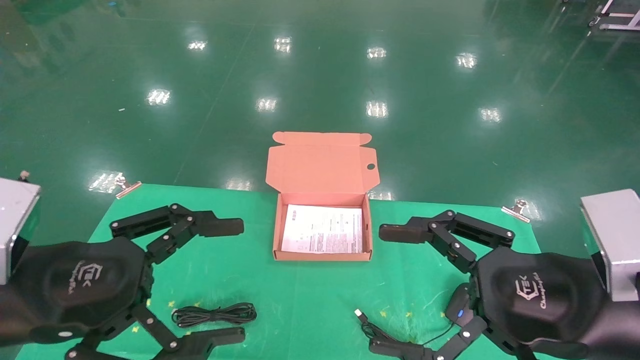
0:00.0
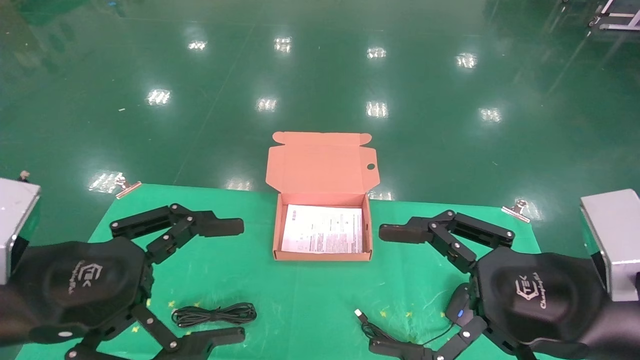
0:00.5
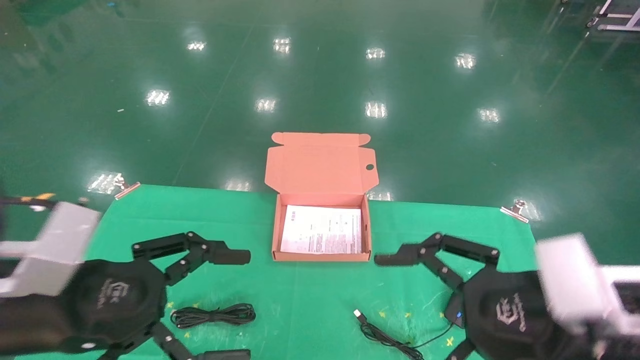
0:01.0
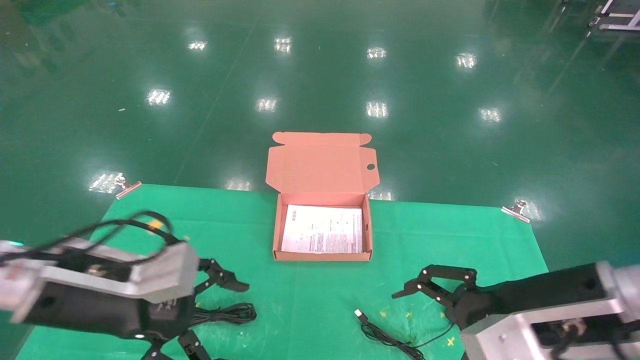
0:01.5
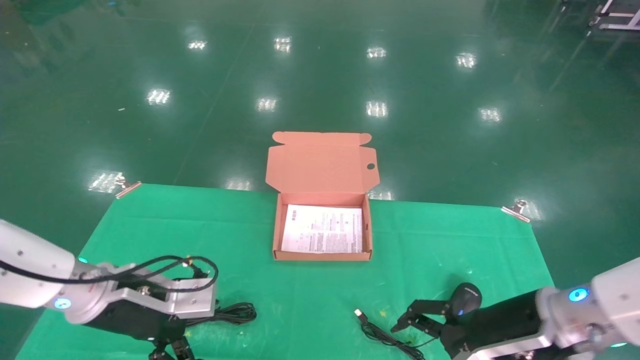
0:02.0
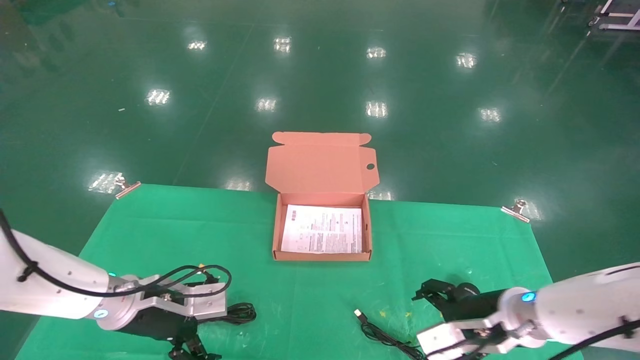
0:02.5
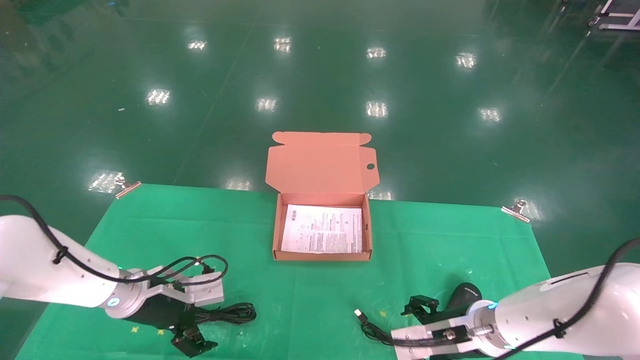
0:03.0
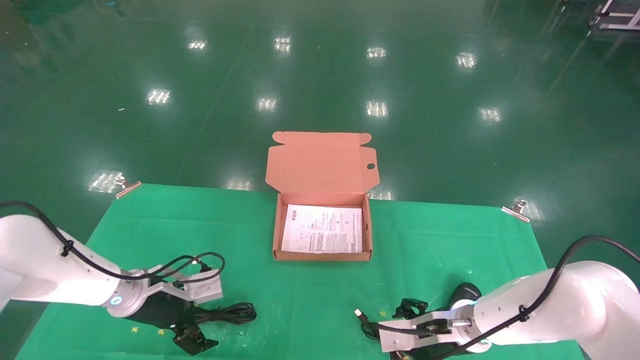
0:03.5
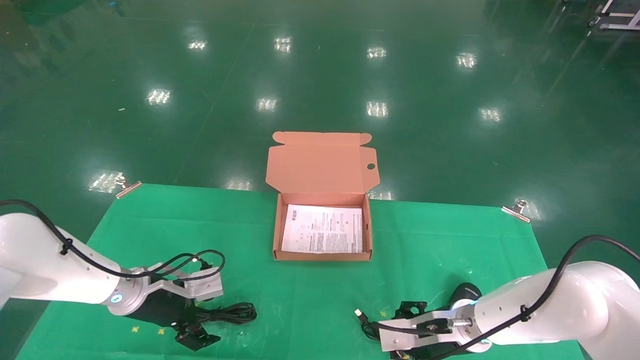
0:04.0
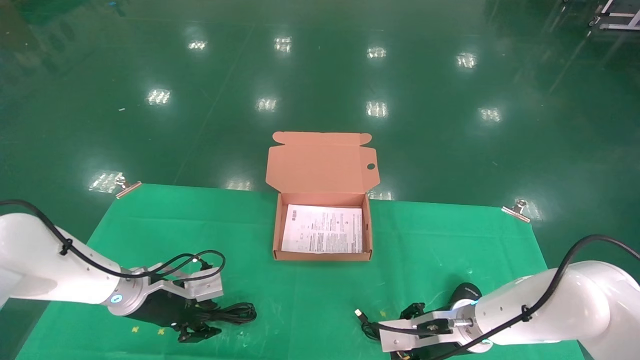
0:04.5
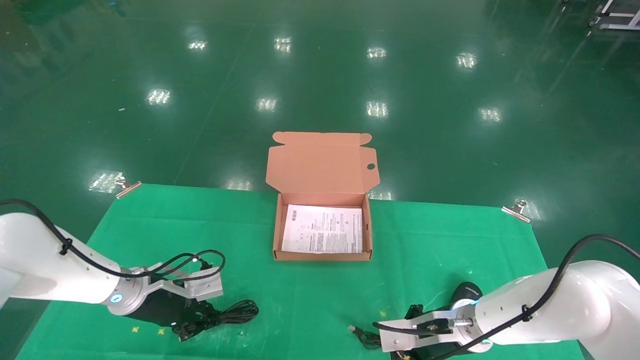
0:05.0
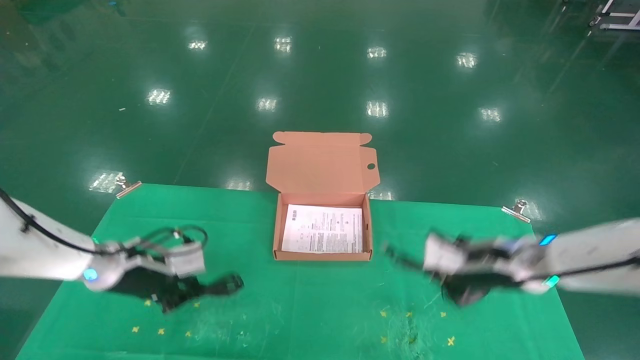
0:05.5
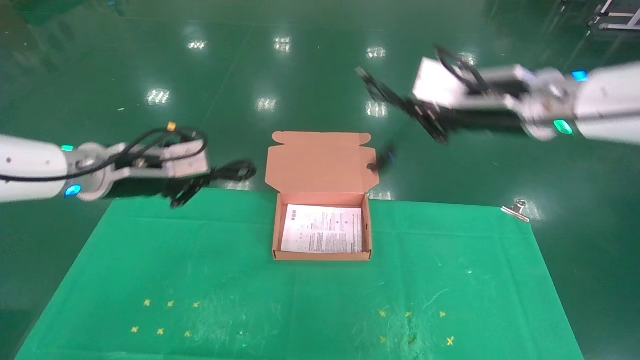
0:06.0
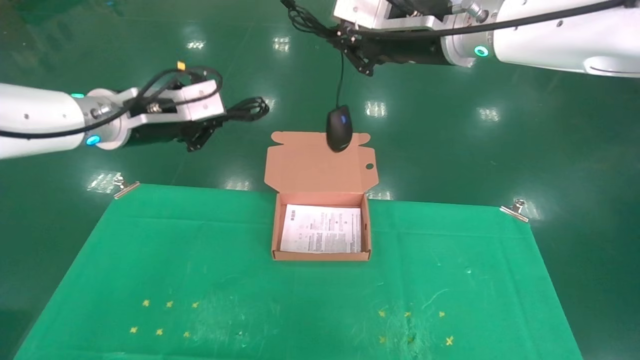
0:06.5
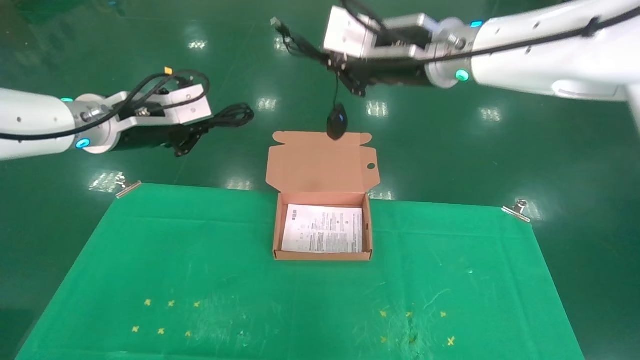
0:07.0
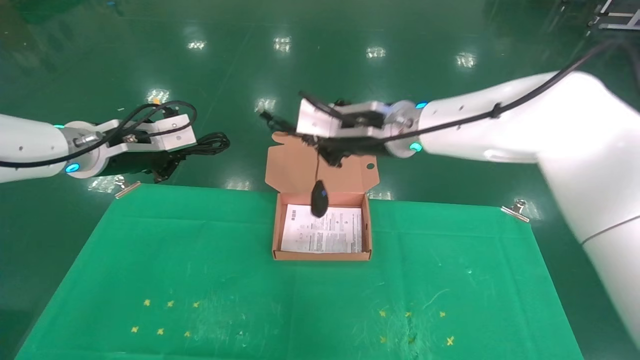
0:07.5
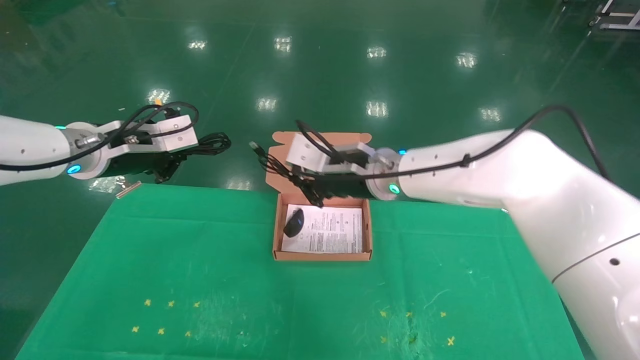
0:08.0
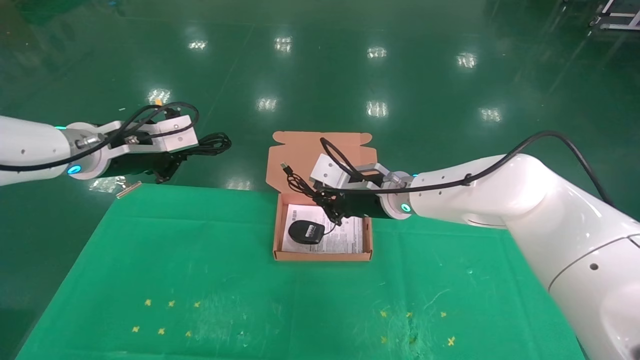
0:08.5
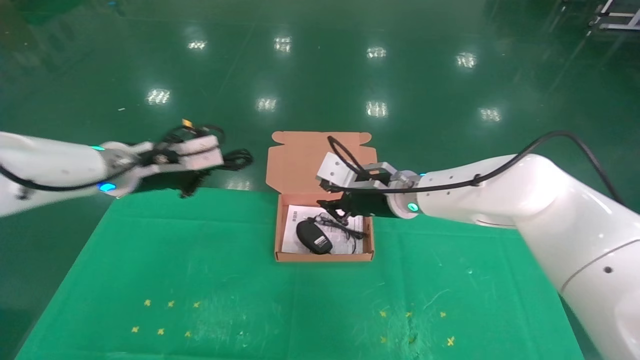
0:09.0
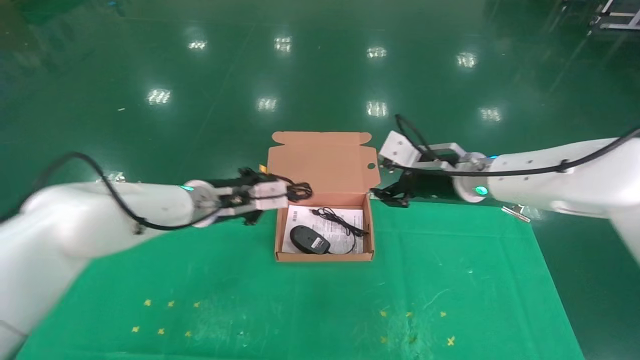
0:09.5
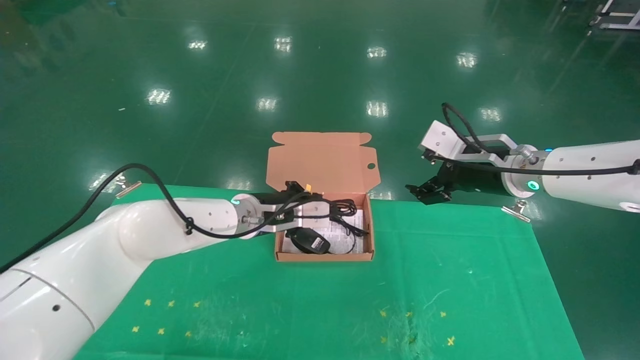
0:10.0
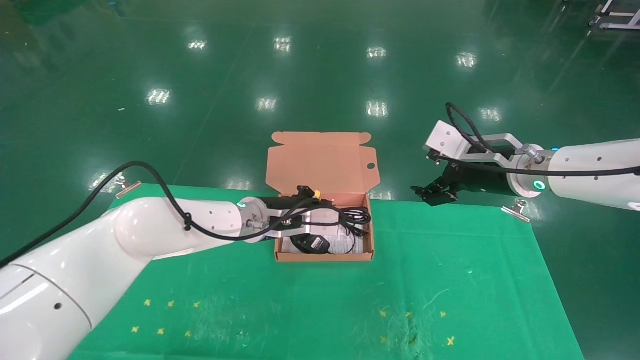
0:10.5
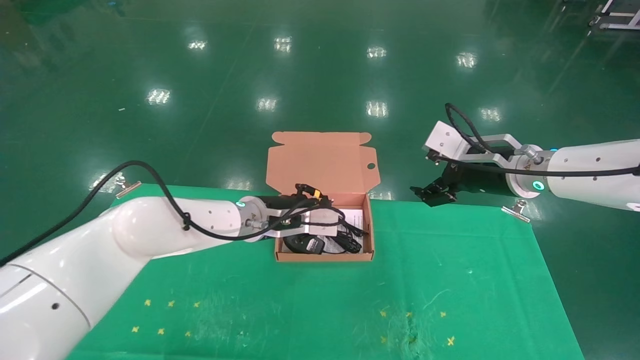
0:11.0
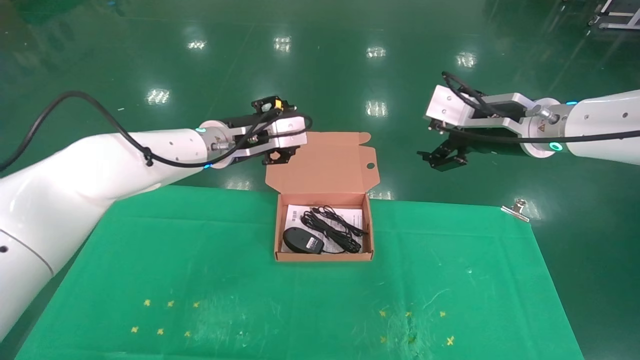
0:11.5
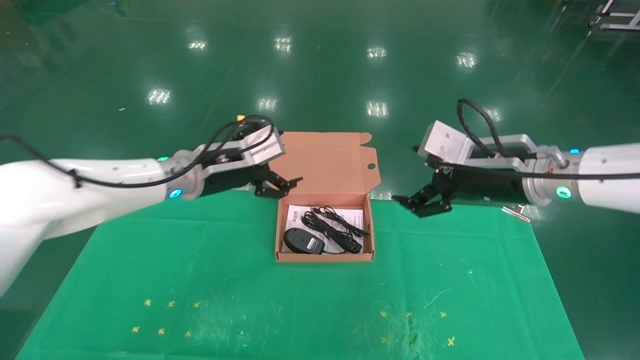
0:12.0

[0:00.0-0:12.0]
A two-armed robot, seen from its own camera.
Task of the whole recording: grasp data cable left put into box grasp mouse right put into box.
Step, 0:01.0 to 0:05.5: Grab and pick up both the mouse and power cord from the accessory packaging area at the same time.
Step, 0:06.0 to 0:10.5: Place the mouse and power cord into the box.
0:00.0 to 0:02.0: Both grippers move forward and downward, approximately 15 cm.
0:02.0 to 0:04.0: The grippers both shift forward and downward by about 15 cm.
0:04.0 to 0:06.0: The left gripper heads upward, covering roughly 20 cm, and closes up; the right gripper travels upward by approximately 30 cm, and closes.
0:06.0 to 0:08.0: The right gripper is displaced to the left, downward and forward by roughly 20 cm.
0:08.0 to 0:10.0: The right gripper goes roughly 20 cm to the right, and opens up. Meanwhile the left gripper moves to the right and downward, some 20 cm.
0:10.0 to 0:12.0: The left gripper heads to the left and upward, covering approximately 10 cm, and opens; the right gripper is displaced backward by about 5 cm.
